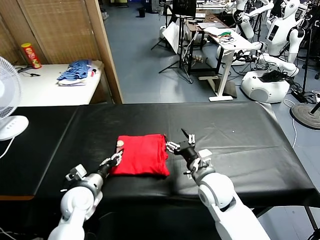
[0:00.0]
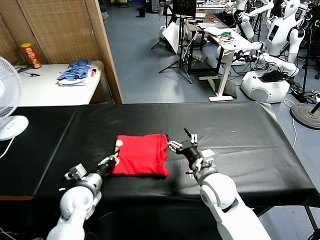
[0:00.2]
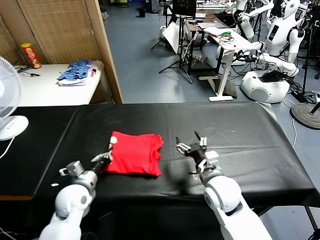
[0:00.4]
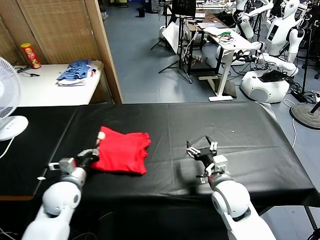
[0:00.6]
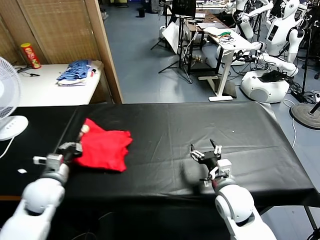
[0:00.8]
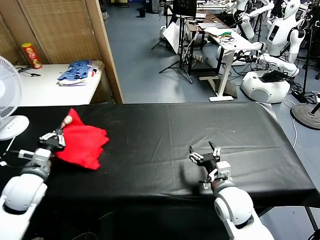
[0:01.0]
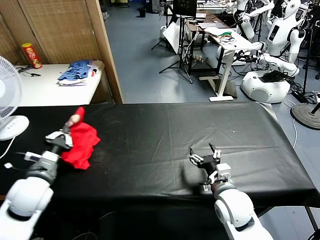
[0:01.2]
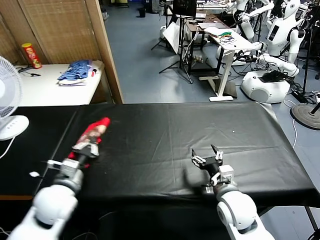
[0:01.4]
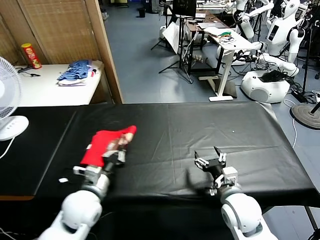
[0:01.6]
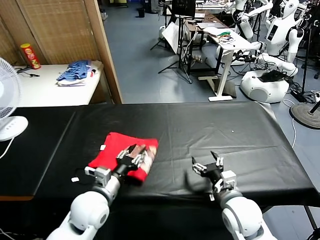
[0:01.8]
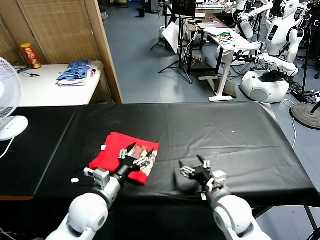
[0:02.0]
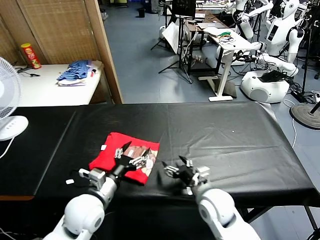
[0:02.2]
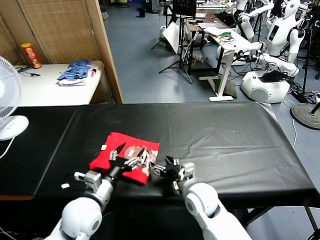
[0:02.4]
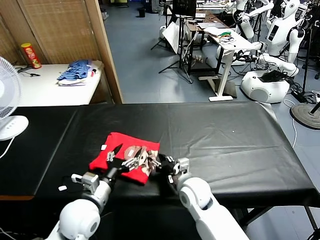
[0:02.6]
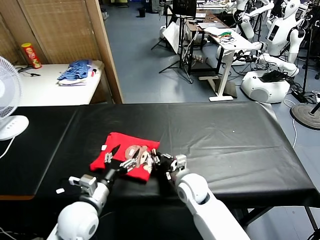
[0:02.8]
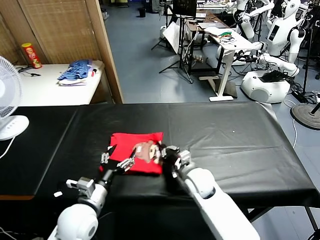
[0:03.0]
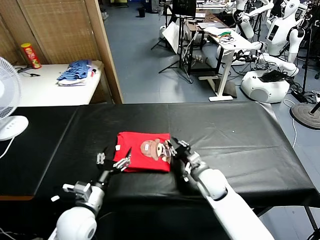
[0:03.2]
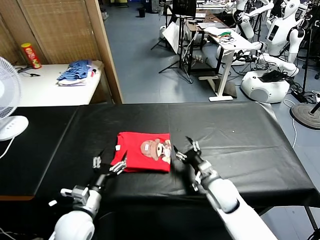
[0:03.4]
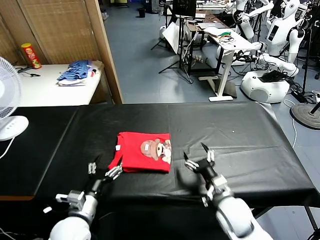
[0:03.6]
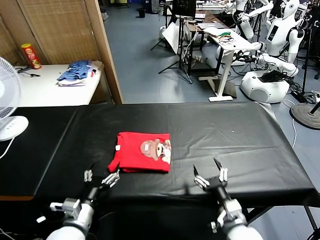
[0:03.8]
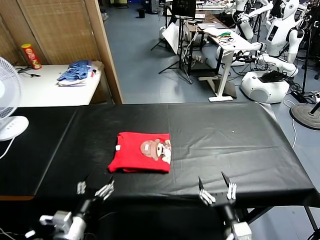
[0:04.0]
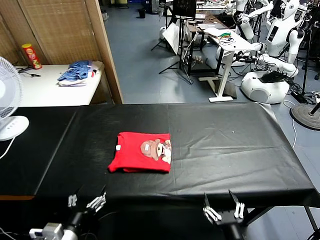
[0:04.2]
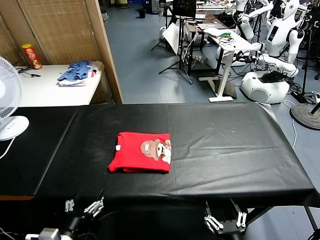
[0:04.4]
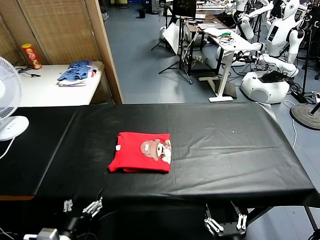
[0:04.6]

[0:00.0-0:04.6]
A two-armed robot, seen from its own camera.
Task of the whole recording: fold and organize the clothes.
Step, 0:00.0 to 0:01.8: Flip the folded clothes over with left gripper.
Step, 0:02.2 to 0:03.4: Drag the clothes to the center of the table.
0:00.0 to 0:01.6: The right gripper shifts some 10 cm to the right and backward. Meanwhile the left gripper moves upward, roughly 5 cm, travels to the left and back again, some 10 cm each way, and closes.
0:01.6 to 0:03.0: The left gripper opens, while the right gripper heads forward, to the left and downward, covering roughly 15 cm, and closes up.
0:03.0 to 0:04.6: The right gripper moves backward, some 30 cm, and opens. The left gripper shifts about 15 cm backward.
